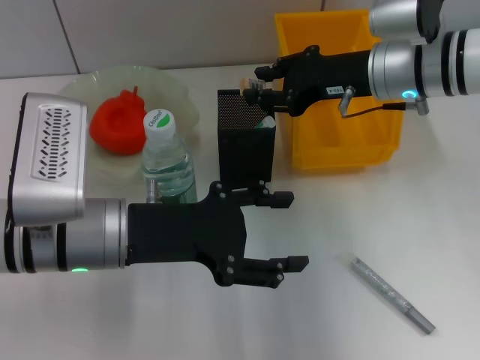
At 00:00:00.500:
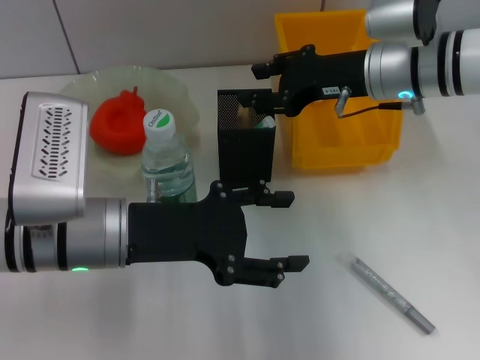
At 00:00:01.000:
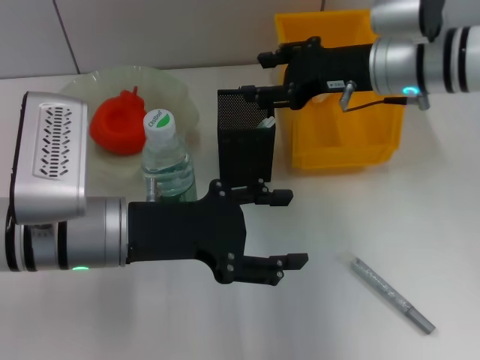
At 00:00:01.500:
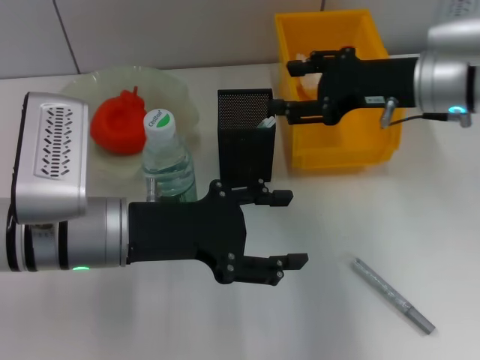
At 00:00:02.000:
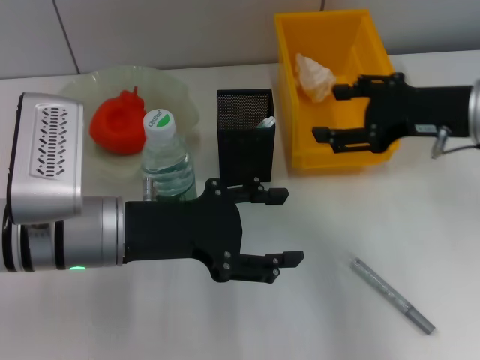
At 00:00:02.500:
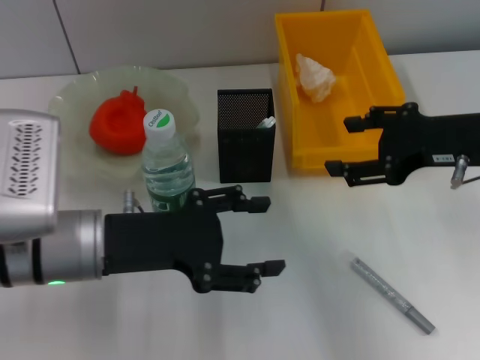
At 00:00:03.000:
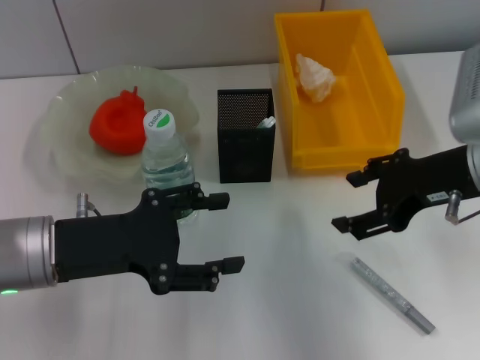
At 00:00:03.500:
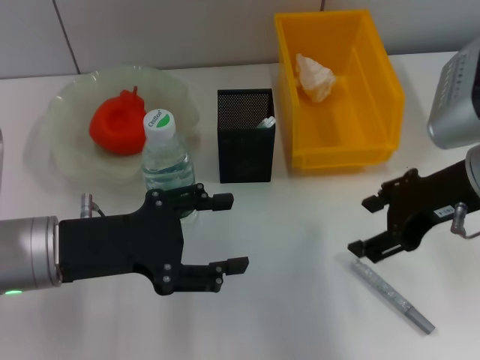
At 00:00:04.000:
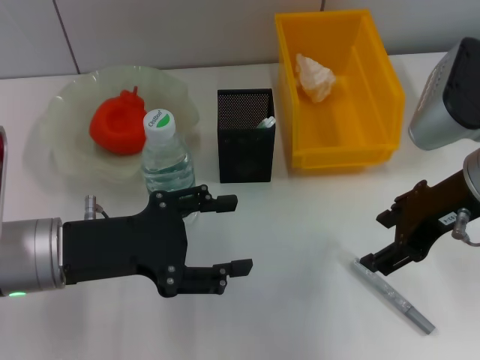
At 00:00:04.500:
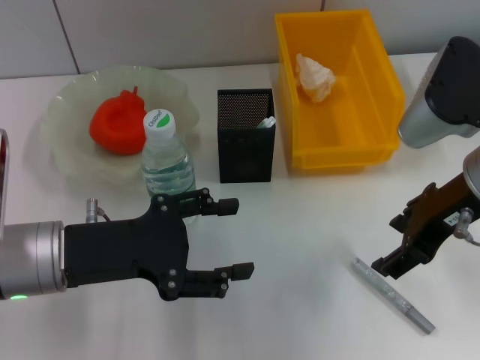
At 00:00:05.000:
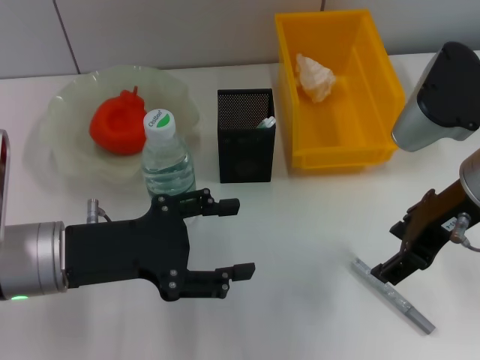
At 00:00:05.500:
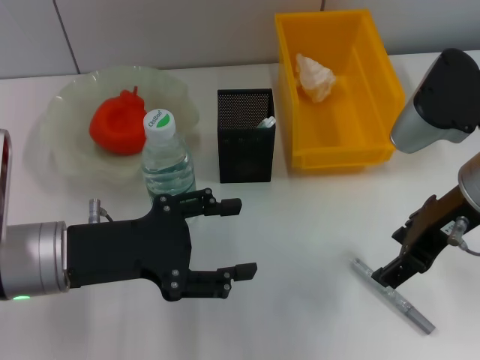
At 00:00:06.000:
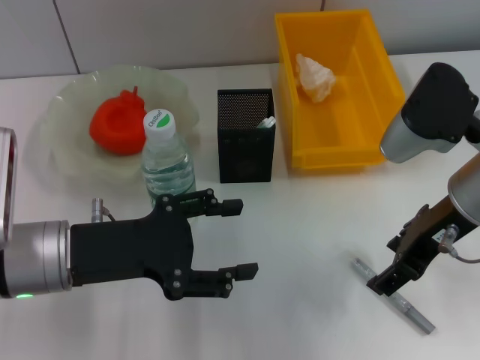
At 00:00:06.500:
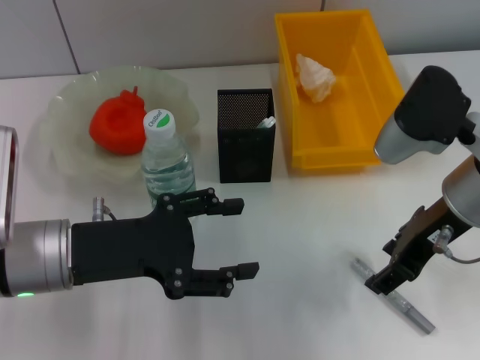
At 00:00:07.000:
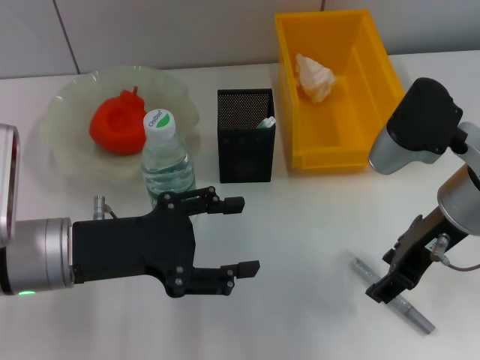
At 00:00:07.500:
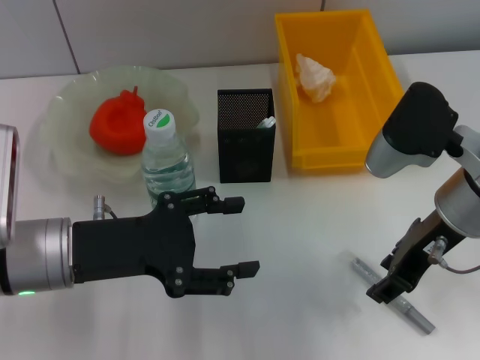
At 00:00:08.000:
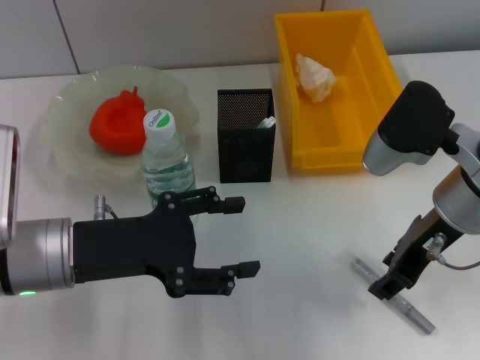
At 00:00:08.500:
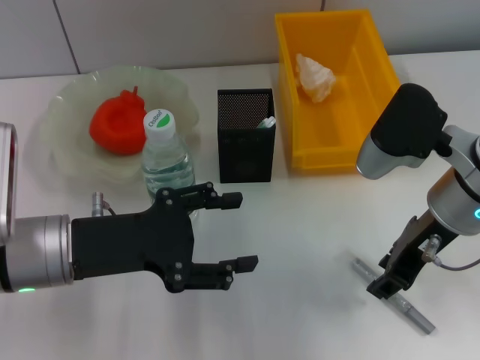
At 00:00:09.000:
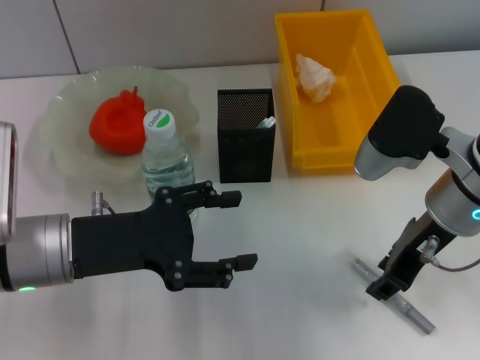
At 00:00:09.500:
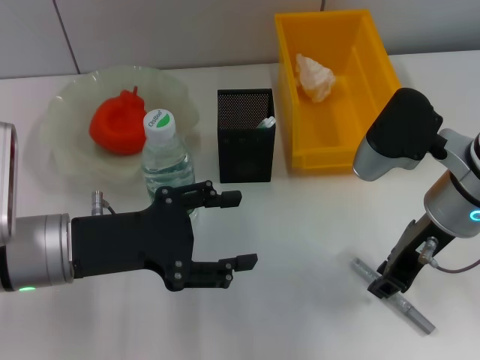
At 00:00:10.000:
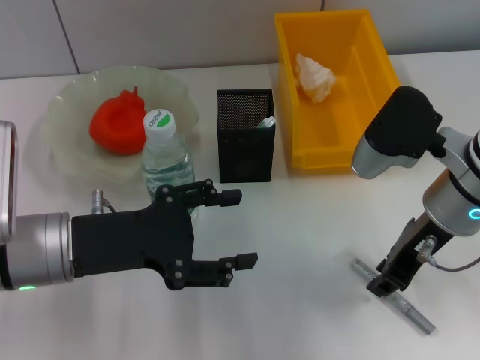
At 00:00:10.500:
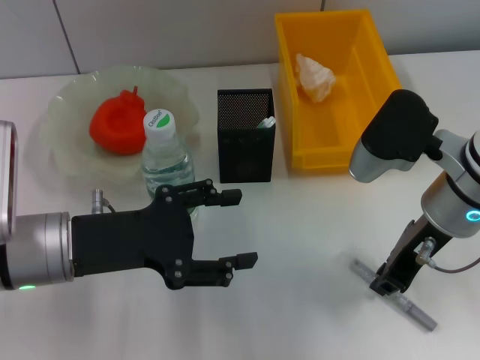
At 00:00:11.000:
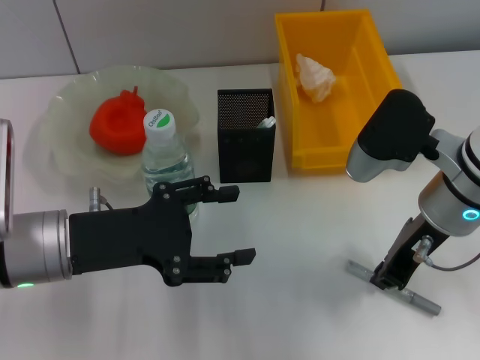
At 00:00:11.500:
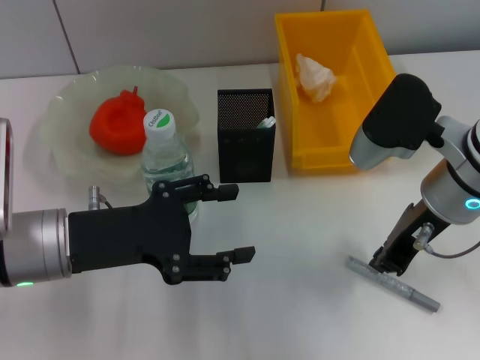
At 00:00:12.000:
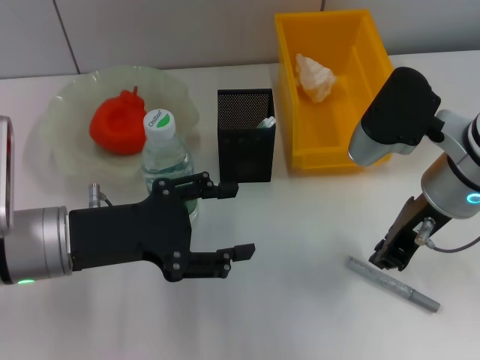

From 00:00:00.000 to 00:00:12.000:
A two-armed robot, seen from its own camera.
From 00:00:00.000 to 00:00:02.000: The right gripper goes approximately 10 cm backward and to the right, and opens.
From 00:00:02.000 to 00:00:04.000: The left gripper ends up some 5 cm from where it was, while the right gripper moves some 5 cm.
From 00:00:04.000 to 00:00:06.000: The grippers stay close to where they were, moving slightly.
From 00:00:06.000 to 00:00:08.000: The right gripper closes up.
From 00:00:08.000 to 00:00:10.000: The two grippers keep their place.
From 00:00:10.000 to 00:00:12.000: The grippers move only a little.

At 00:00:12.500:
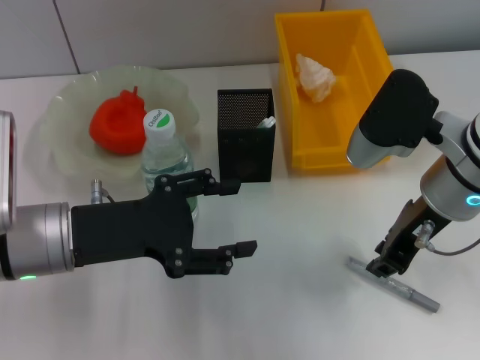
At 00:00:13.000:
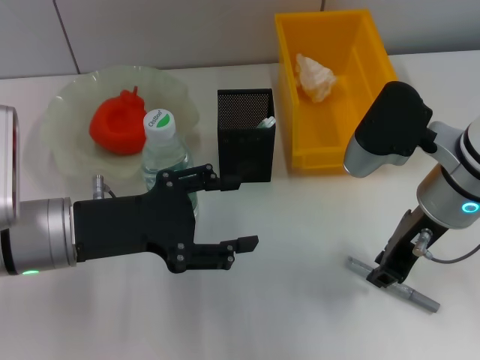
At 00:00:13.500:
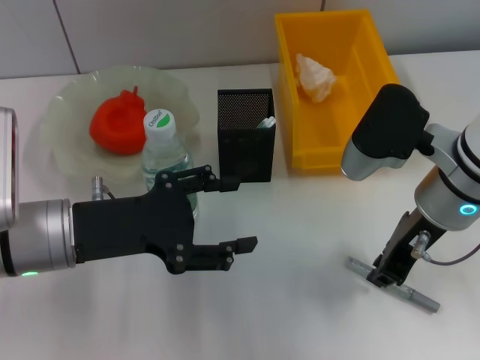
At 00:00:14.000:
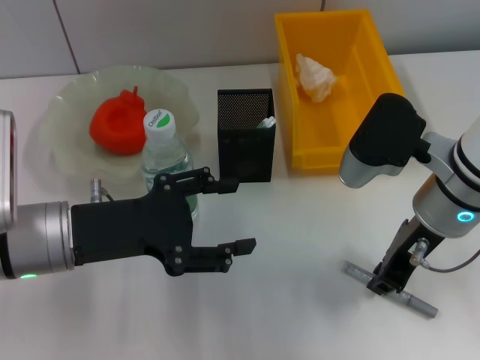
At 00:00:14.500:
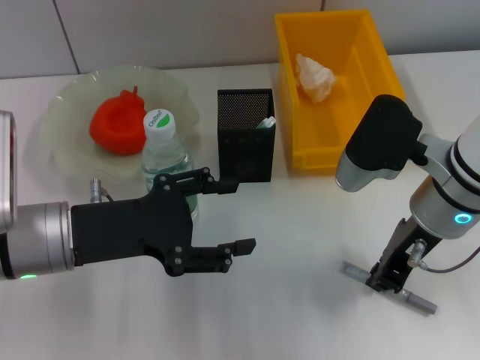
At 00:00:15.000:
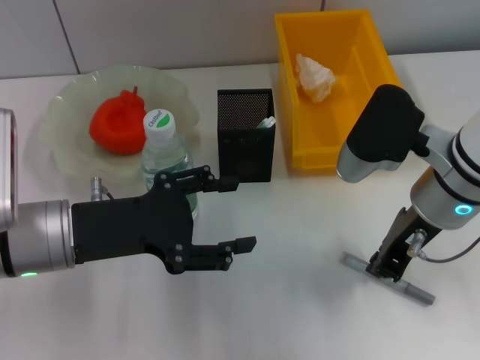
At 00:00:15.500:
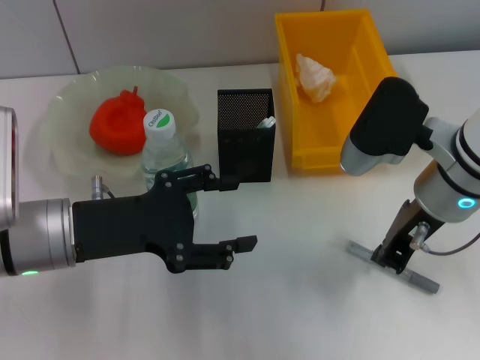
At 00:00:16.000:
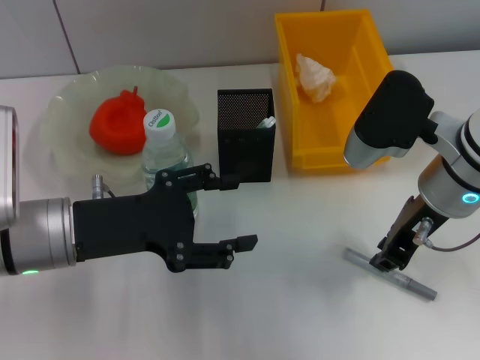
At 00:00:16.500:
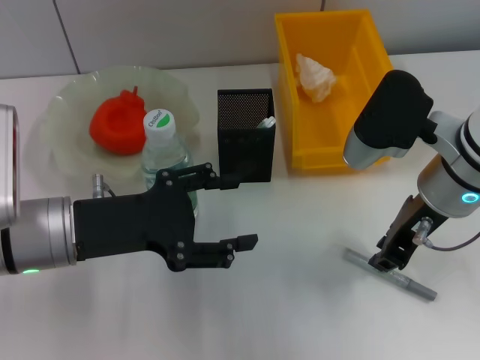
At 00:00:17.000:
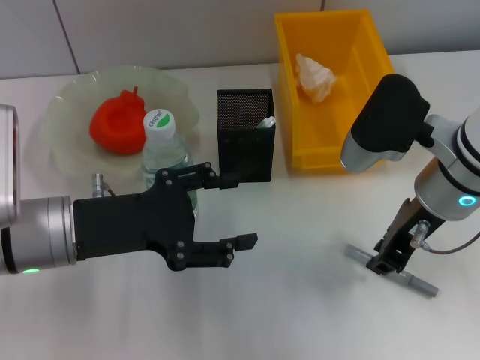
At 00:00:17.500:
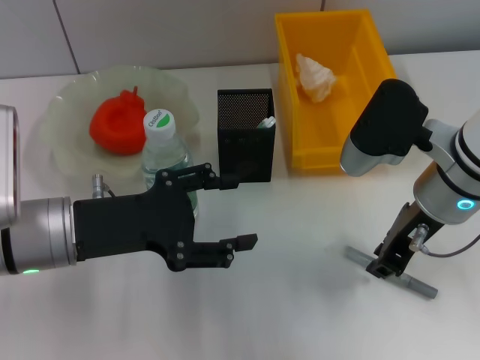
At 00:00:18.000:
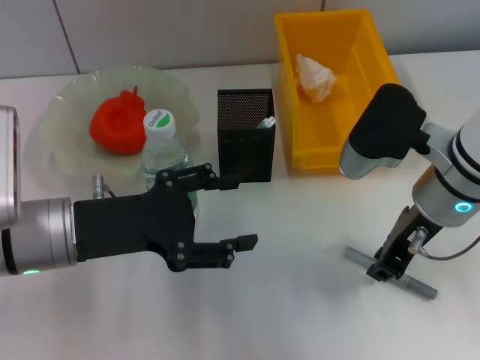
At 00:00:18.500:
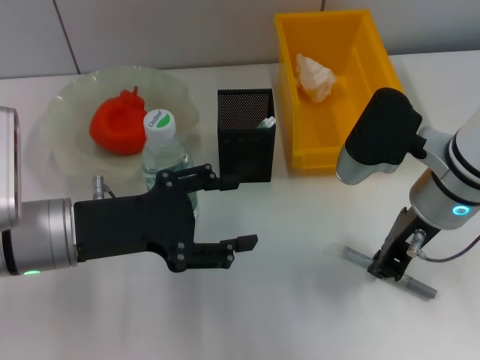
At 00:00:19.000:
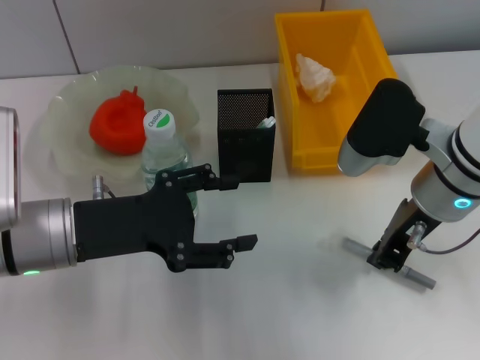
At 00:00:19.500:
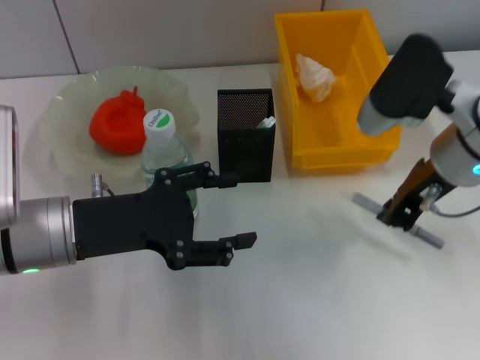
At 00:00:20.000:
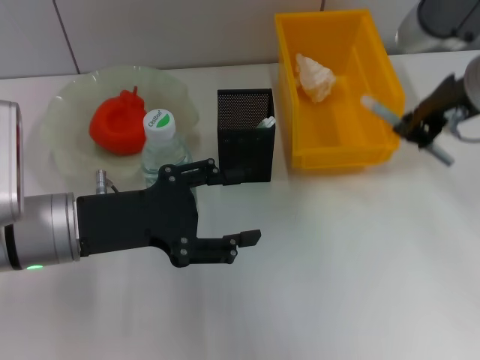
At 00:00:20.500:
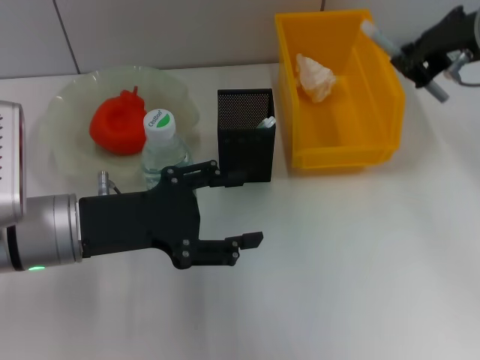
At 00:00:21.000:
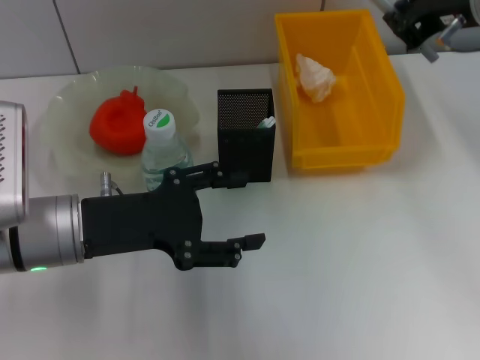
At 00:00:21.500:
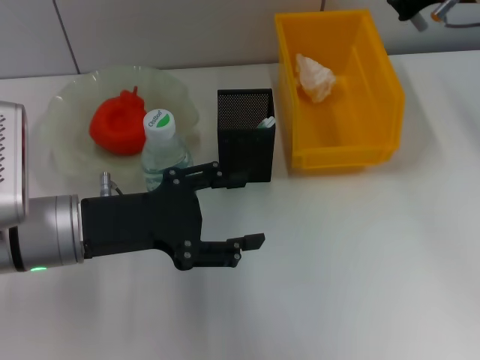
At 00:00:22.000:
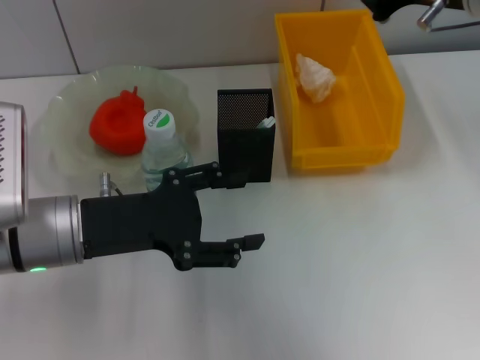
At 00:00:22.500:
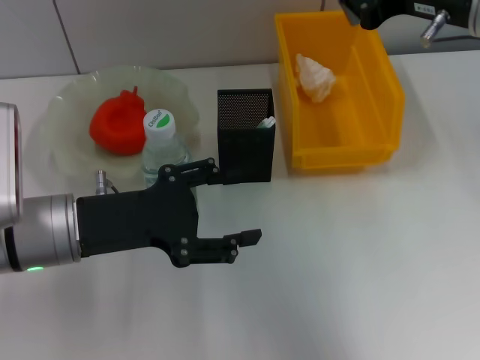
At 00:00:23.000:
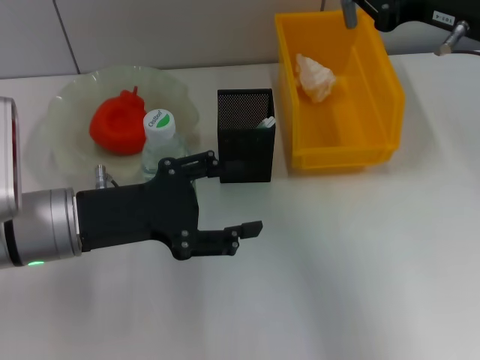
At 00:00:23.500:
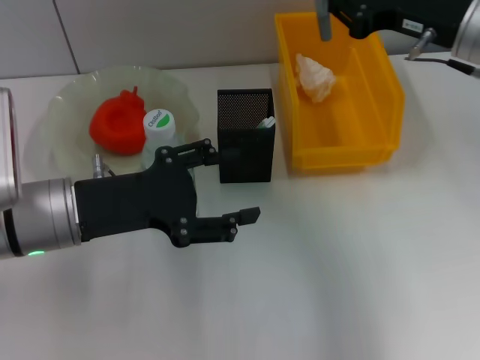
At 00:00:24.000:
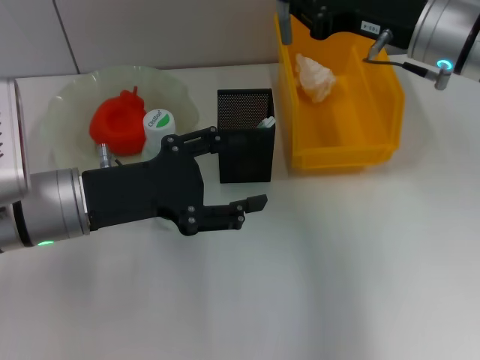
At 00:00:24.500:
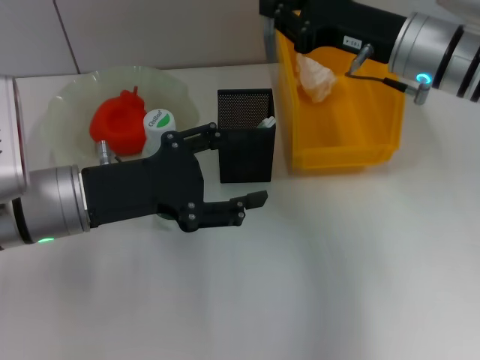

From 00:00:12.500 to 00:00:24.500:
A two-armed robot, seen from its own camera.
Step, from 00:00:12.500 to 00:00:18.000: Grab the gray glue with the right hand.
From 00:00:12.500 to 00:00:18.500: There are only small adjustments of the grippers.
From 00:00:18.500 to 00:00:20.500: The right gripper shifts approximately 10 cm upward.
From 00:00:22.500 to 00:00:24.500: The right gripper heads downward and forward, covering approximately 10 cm.

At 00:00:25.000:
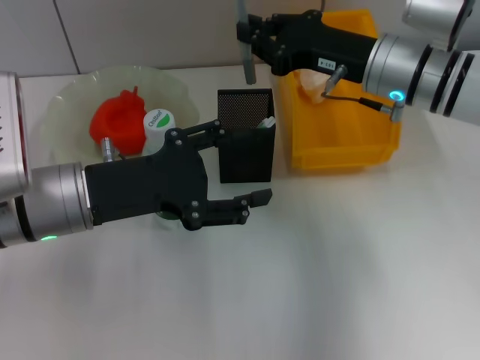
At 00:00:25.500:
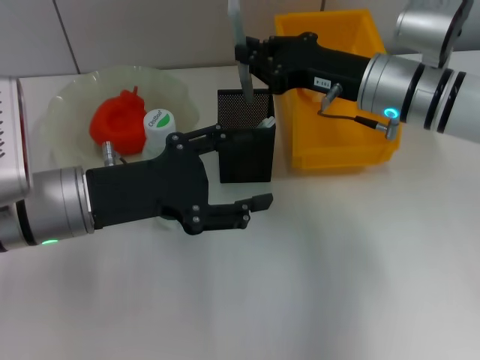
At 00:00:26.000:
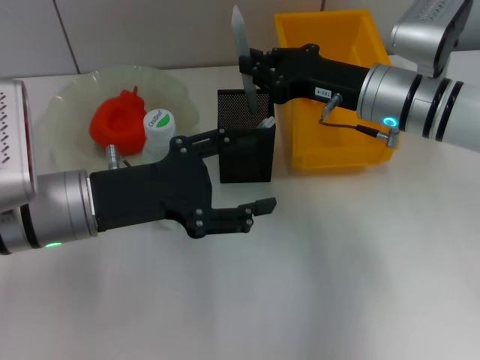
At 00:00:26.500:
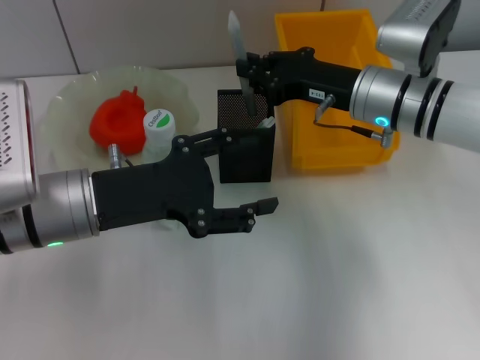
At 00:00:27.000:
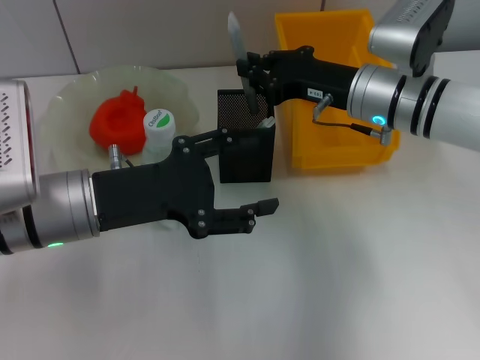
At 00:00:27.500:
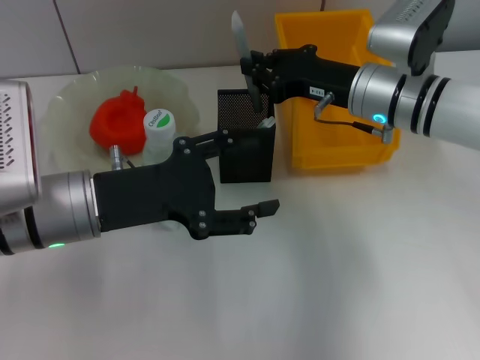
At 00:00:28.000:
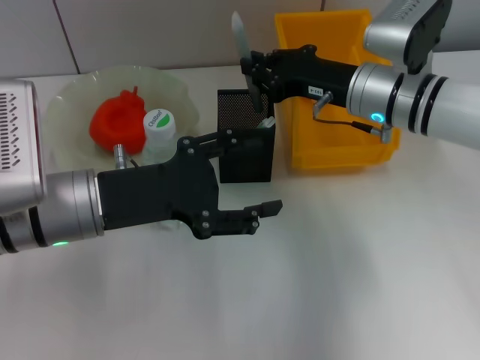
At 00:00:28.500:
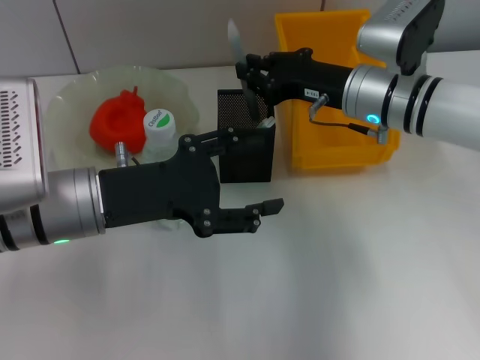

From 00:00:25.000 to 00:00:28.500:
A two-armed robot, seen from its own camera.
From 00:00:25.000 to 00:00:27.000: The grippers stay close to where they were, moving slightly.
From 00:00:27.000 to 00:00:28.500: Neither gripper changes place.
